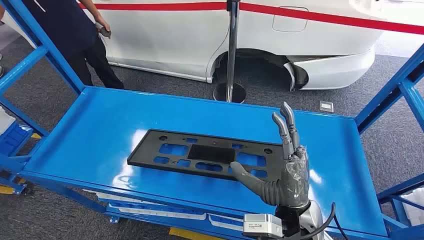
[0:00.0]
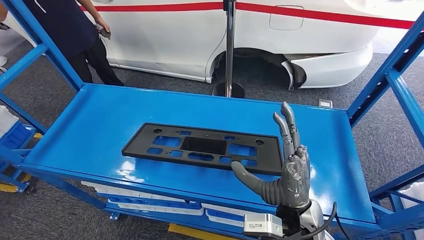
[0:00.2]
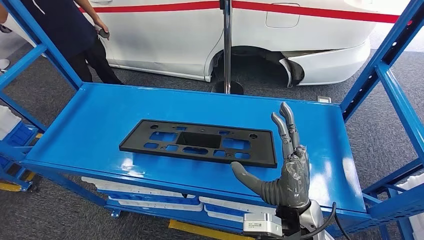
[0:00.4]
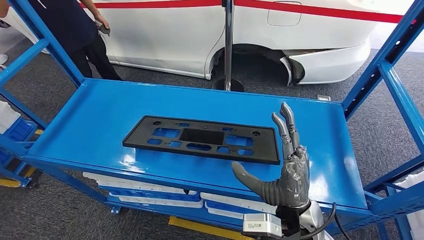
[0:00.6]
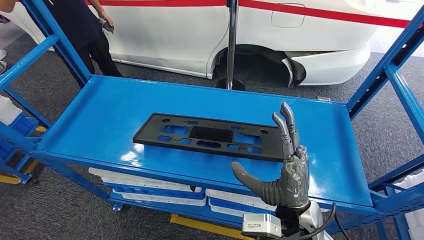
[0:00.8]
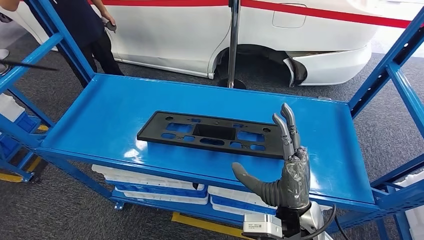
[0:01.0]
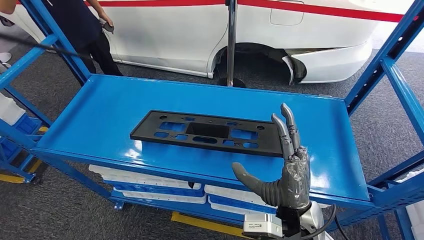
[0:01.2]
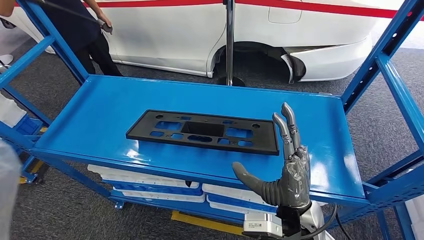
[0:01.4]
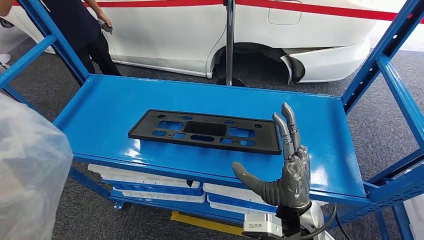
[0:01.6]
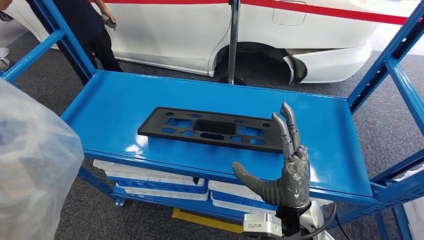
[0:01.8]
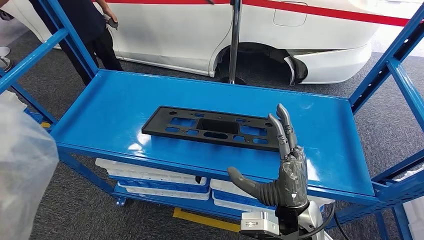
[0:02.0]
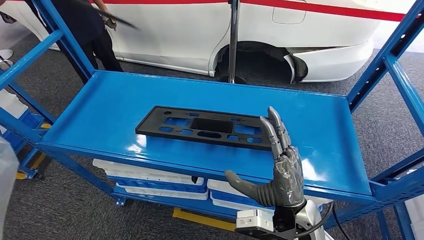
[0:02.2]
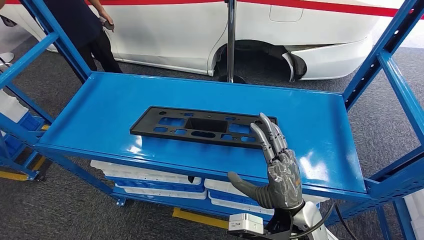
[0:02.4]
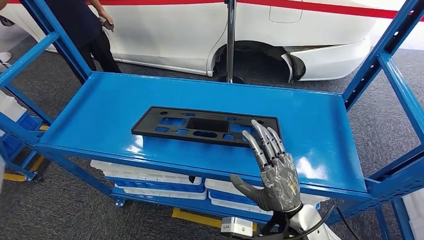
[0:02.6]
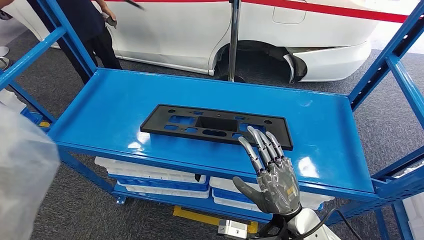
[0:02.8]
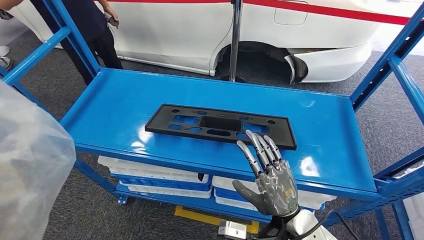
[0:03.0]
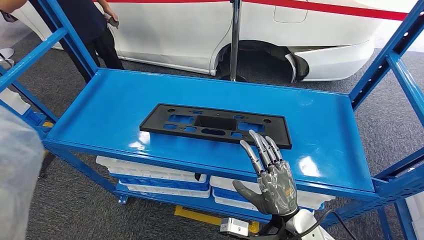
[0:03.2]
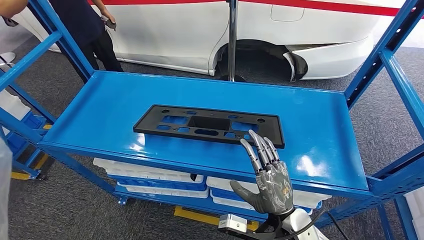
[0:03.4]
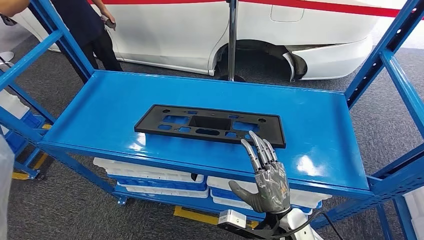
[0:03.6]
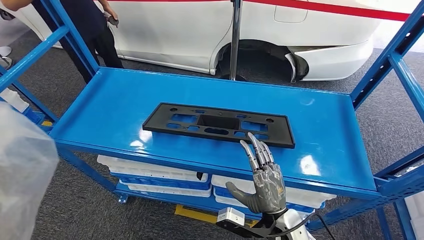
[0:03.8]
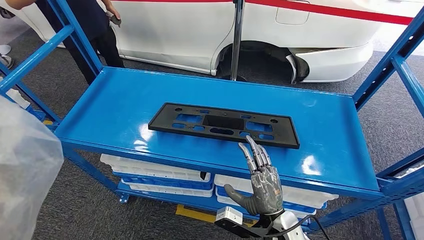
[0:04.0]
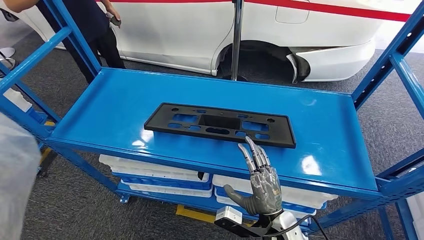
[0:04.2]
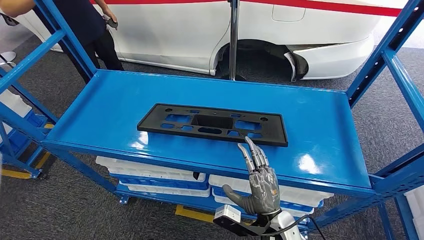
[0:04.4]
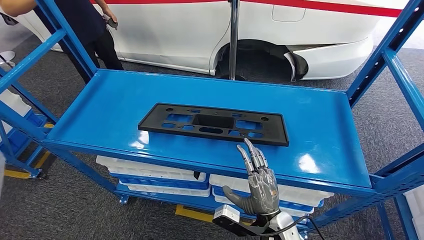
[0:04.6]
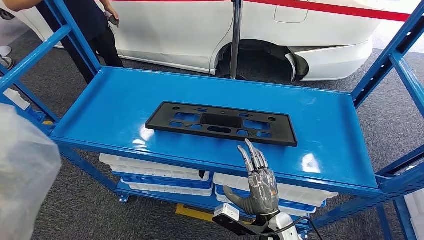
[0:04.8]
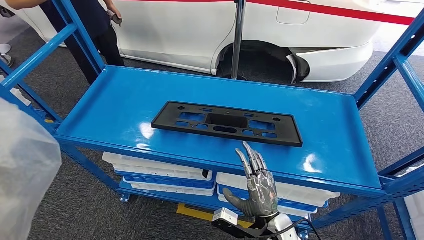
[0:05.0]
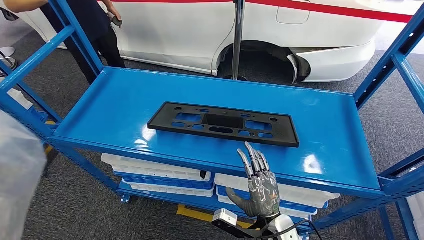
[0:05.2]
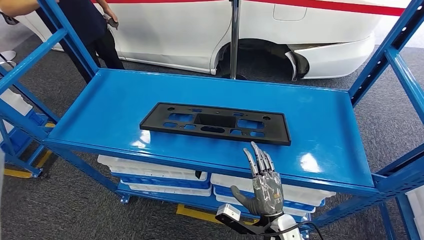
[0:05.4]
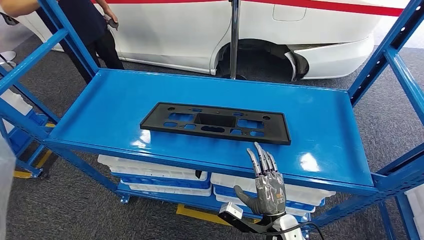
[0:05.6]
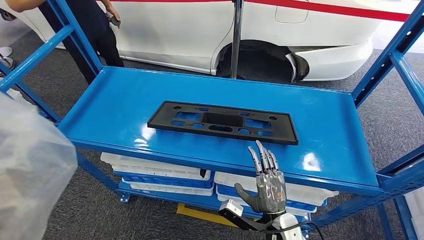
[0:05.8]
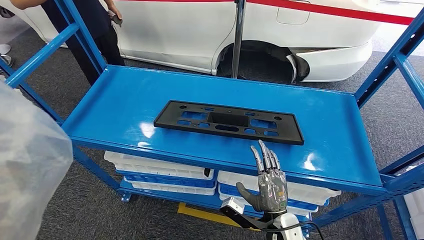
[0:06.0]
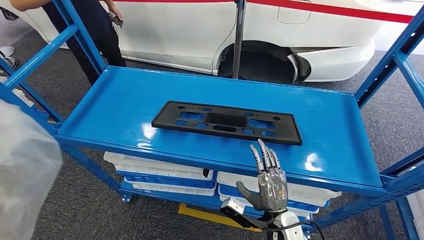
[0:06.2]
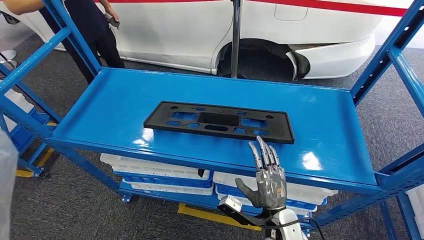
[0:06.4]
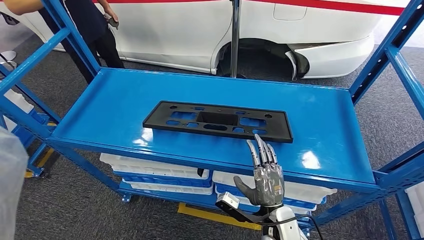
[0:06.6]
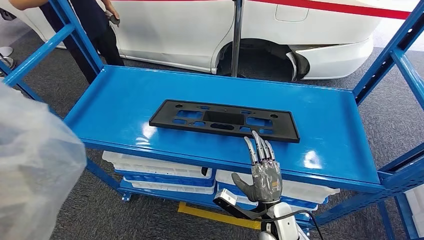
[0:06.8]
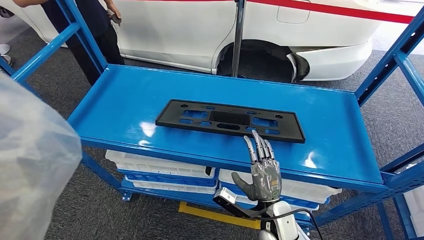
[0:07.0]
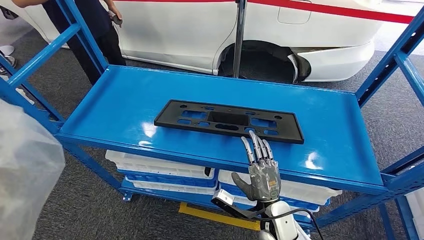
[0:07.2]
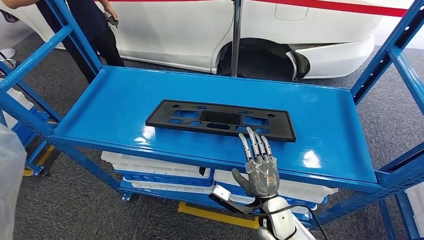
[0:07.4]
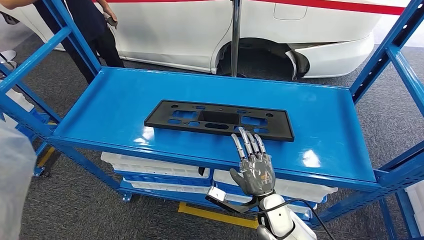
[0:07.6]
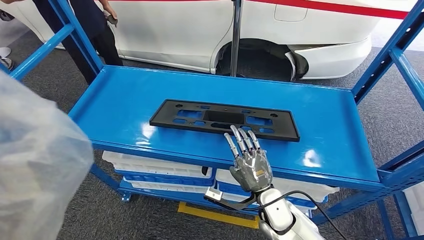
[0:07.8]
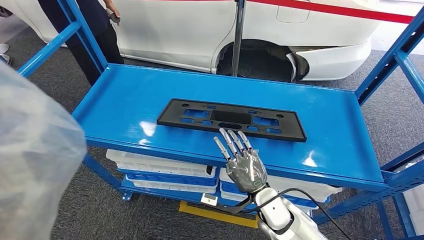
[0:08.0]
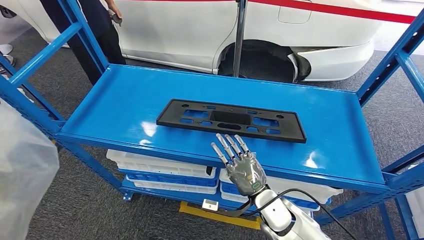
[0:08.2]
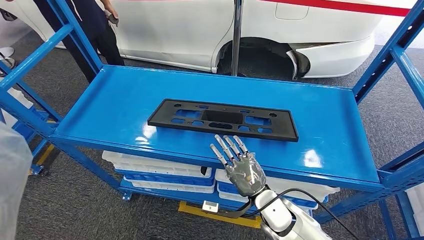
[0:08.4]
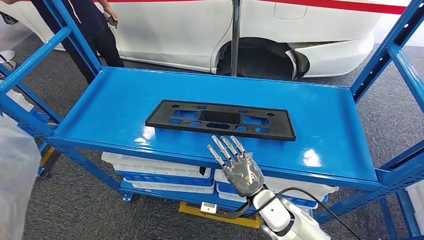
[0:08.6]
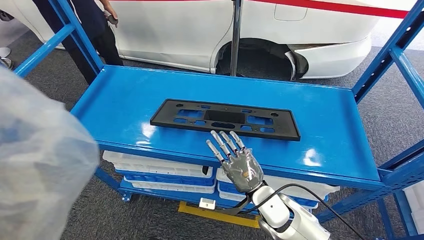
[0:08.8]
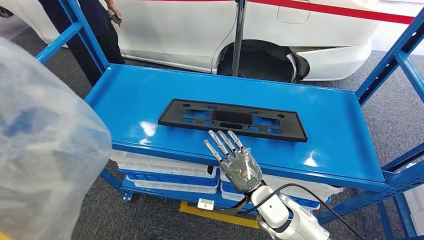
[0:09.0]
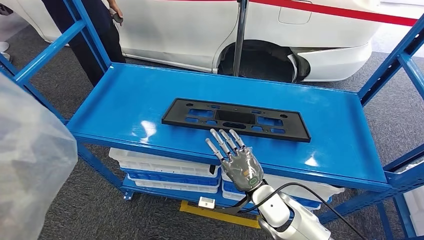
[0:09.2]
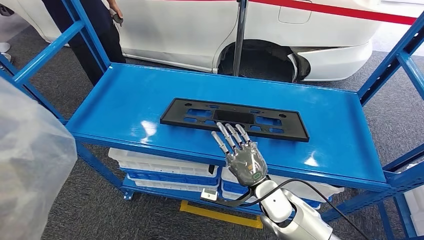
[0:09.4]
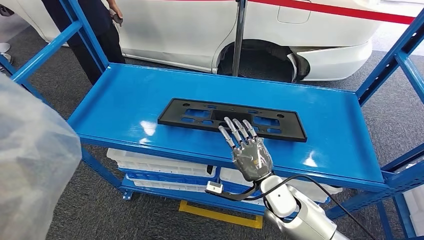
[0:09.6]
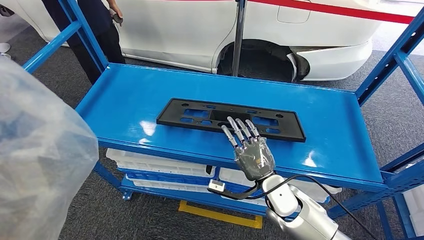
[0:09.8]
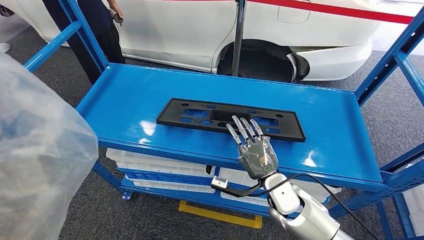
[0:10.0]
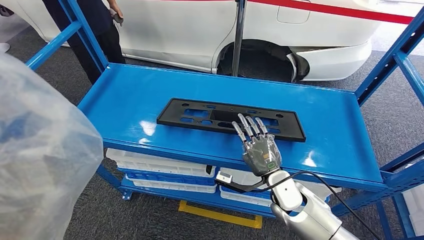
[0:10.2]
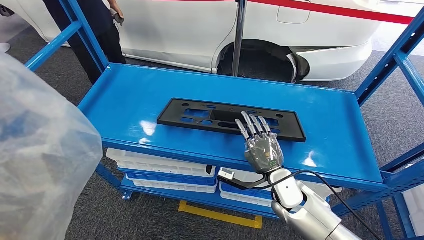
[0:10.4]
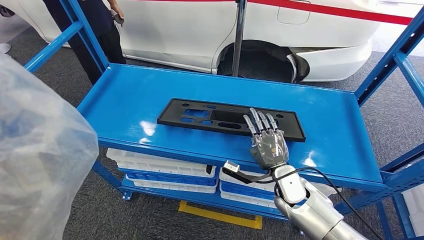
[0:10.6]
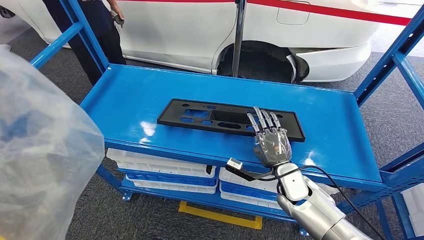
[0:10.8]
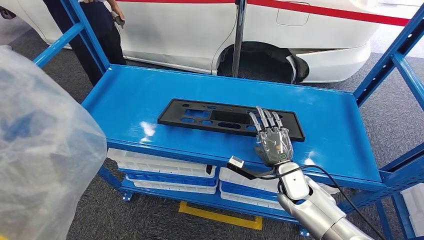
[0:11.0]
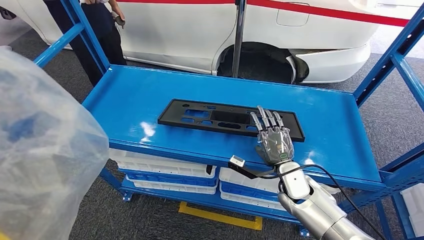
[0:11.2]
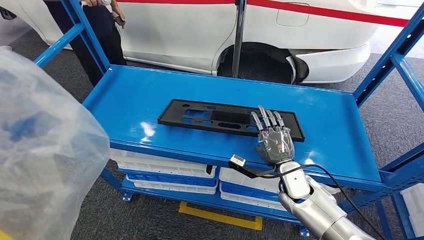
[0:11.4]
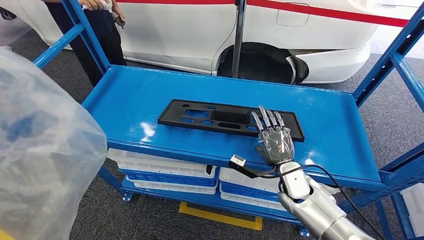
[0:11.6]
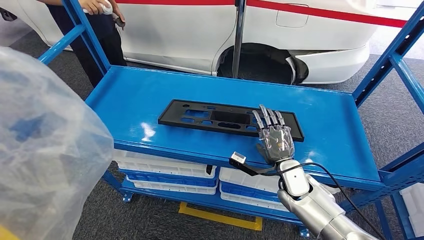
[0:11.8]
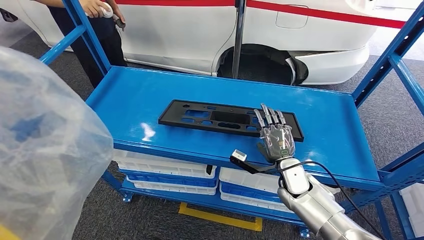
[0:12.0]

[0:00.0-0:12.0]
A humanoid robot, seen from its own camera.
0:09.0 to 0:10.4: The right hand shifts by about 5 cm.

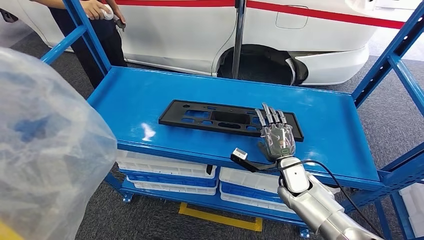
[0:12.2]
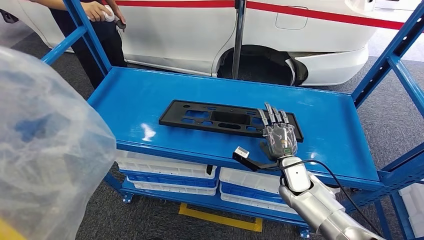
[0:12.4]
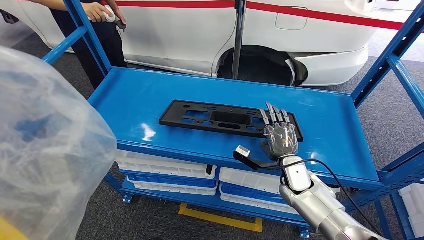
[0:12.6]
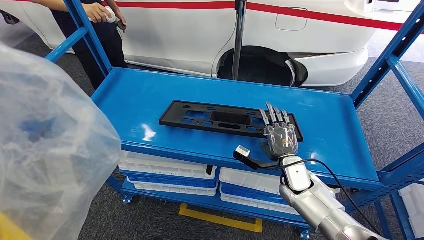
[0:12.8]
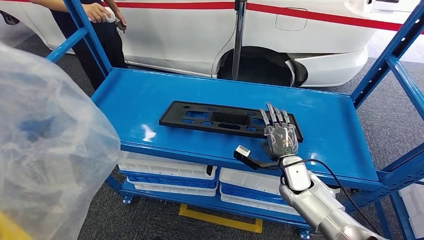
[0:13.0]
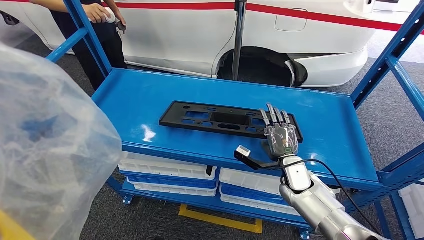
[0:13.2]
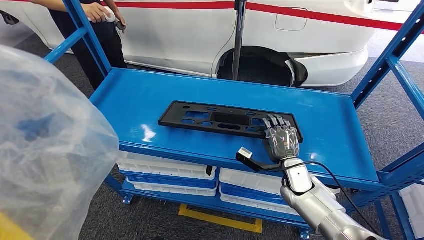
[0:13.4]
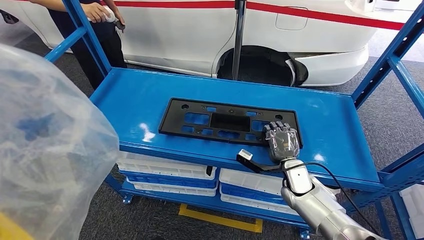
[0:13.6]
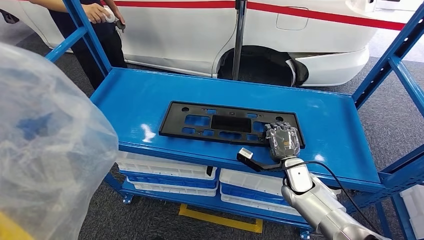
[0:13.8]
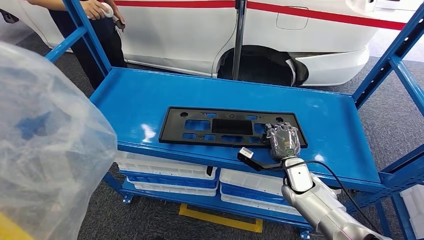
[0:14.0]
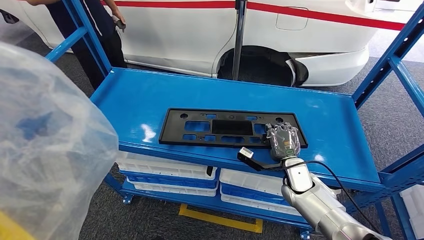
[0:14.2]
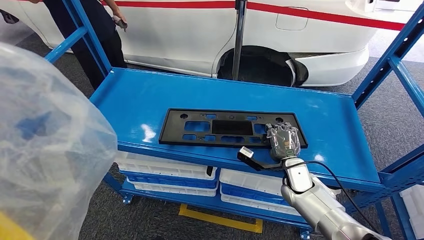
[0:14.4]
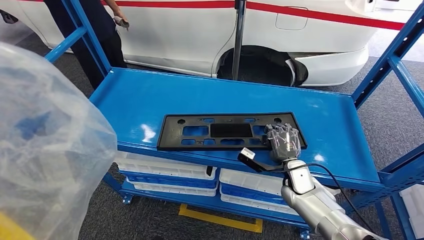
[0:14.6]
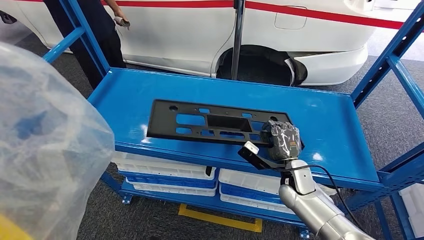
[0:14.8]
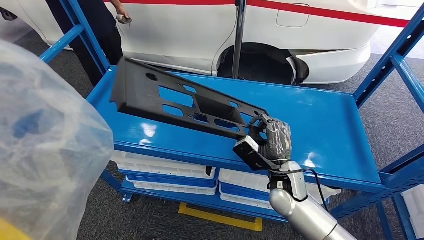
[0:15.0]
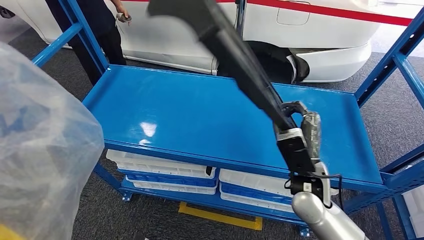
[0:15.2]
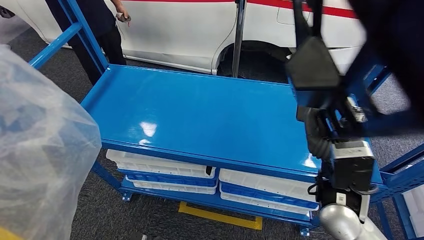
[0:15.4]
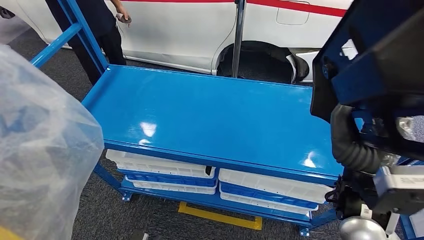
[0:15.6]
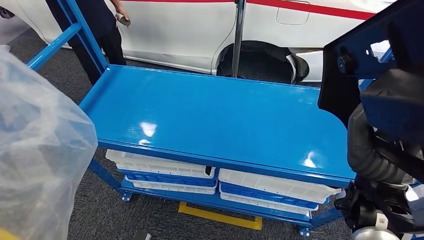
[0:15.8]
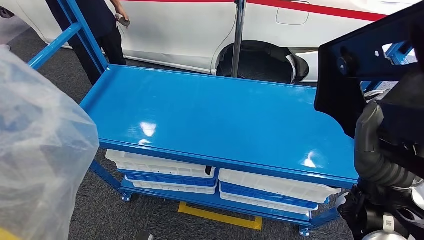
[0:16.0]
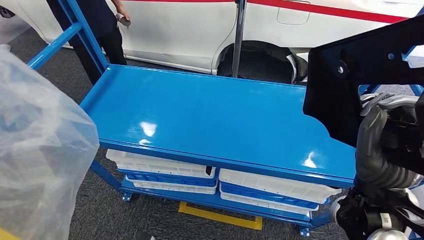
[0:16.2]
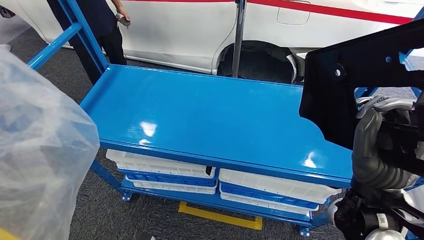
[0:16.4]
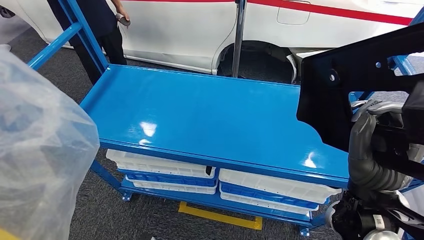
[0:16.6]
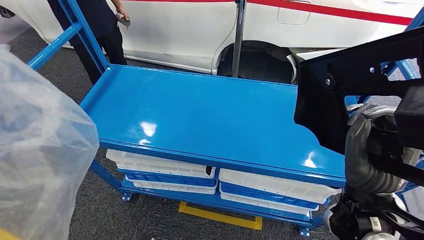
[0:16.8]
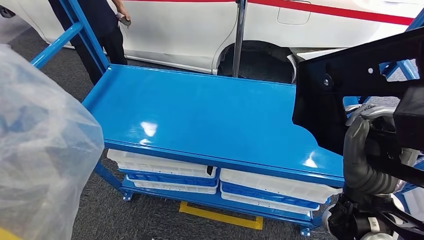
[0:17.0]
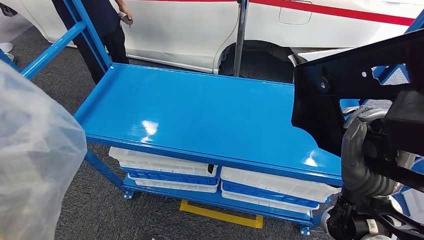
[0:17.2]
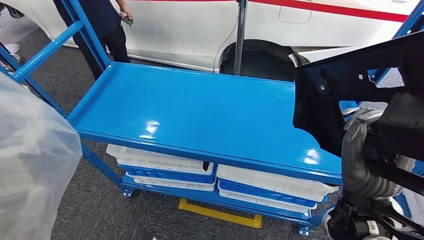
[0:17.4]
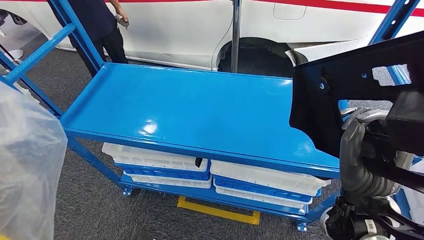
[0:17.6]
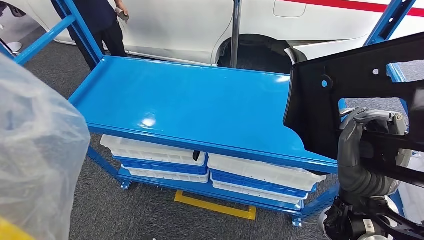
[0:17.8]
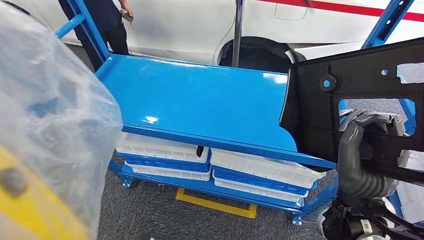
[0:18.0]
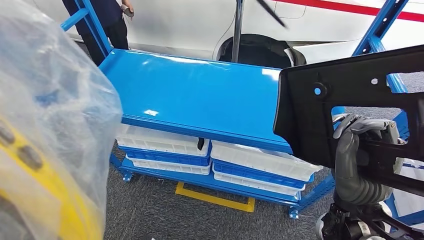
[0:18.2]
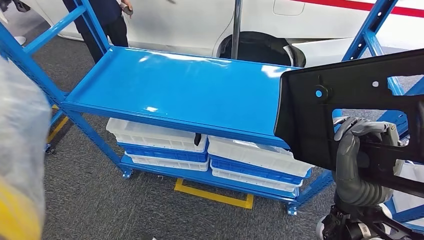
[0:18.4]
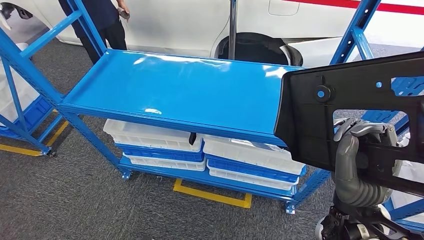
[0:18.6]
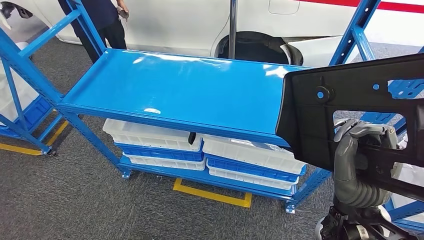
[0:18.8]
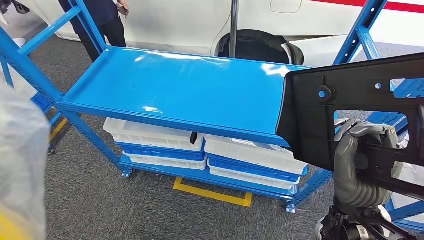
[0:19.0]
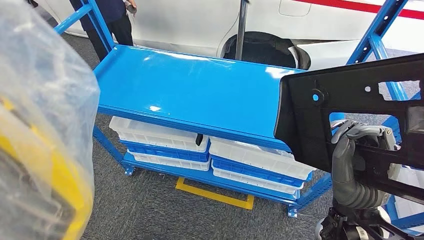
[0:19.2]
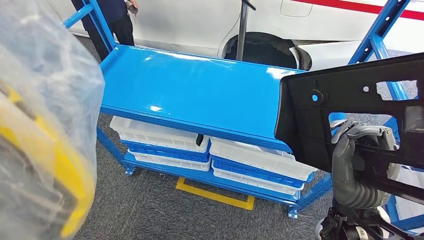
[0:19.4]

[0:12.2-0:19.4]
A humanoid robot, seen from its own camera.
Step, 0:12.2 to 0:15.8: Pick up the large material from the shelf.
0:12.2 to 0:13.6: The hands move only a little.
